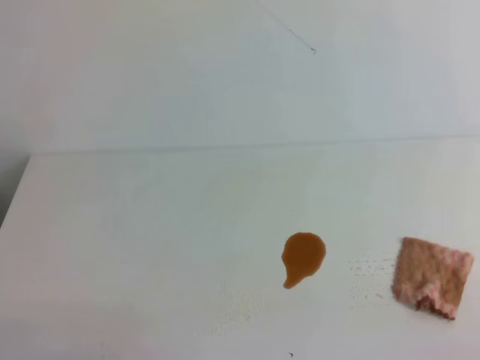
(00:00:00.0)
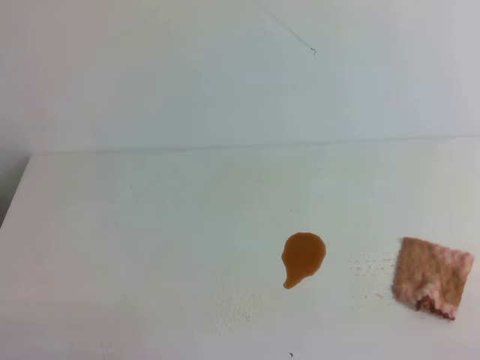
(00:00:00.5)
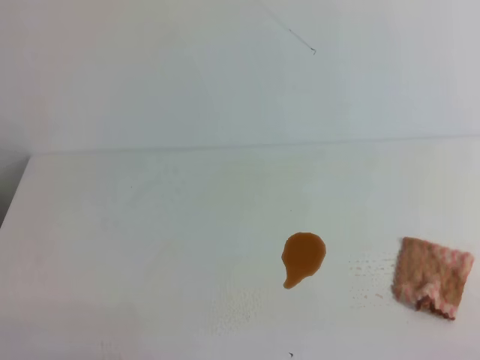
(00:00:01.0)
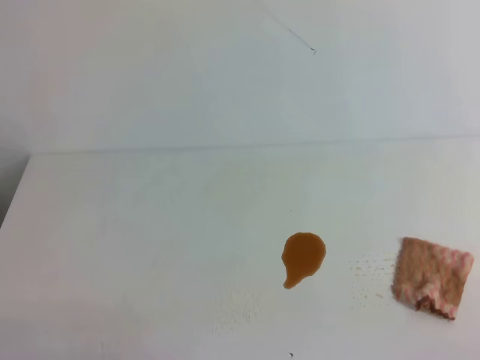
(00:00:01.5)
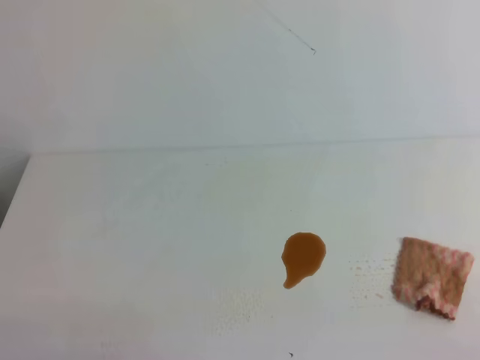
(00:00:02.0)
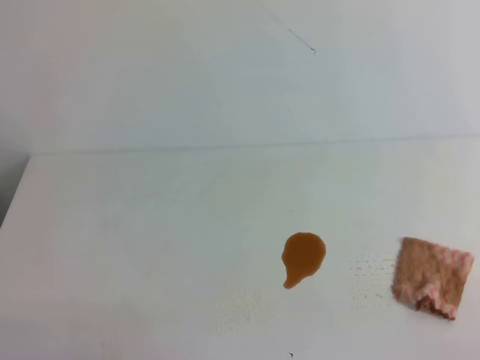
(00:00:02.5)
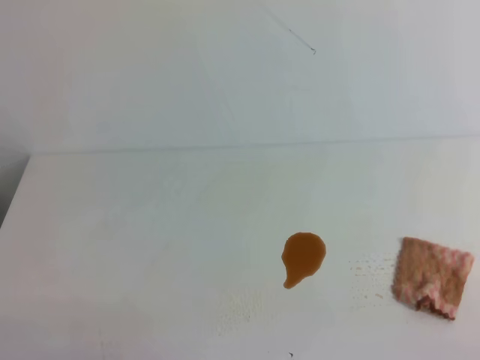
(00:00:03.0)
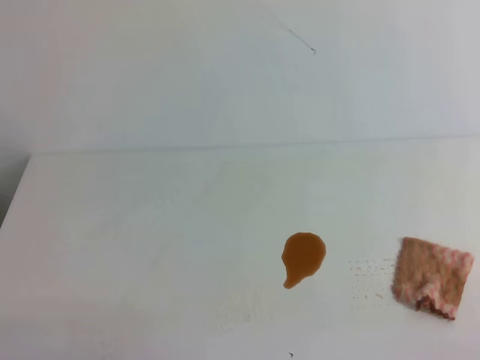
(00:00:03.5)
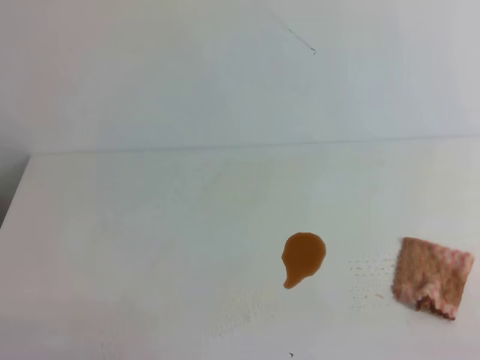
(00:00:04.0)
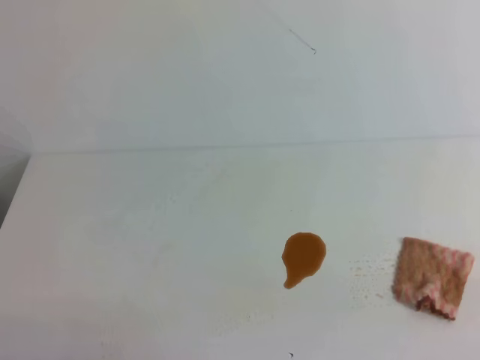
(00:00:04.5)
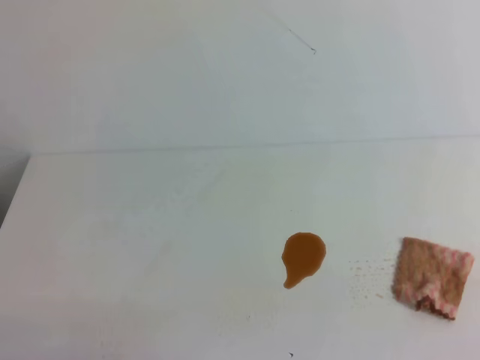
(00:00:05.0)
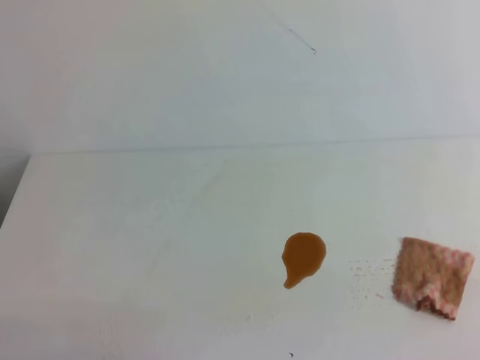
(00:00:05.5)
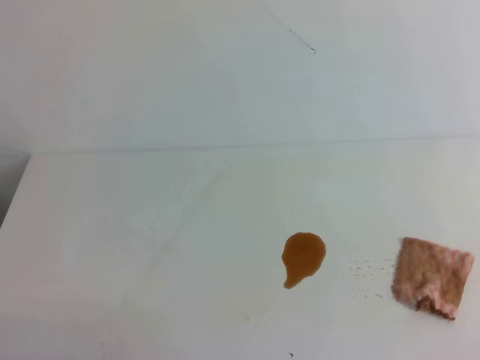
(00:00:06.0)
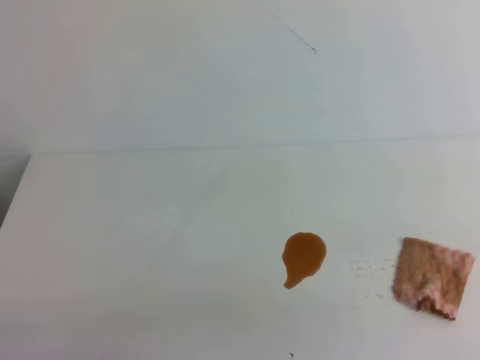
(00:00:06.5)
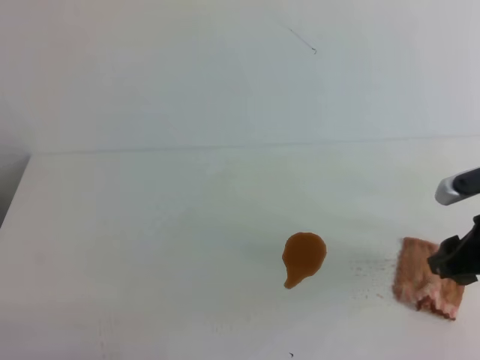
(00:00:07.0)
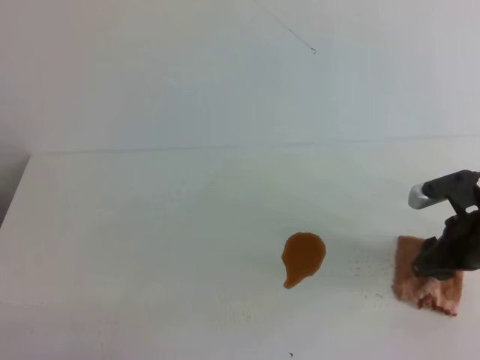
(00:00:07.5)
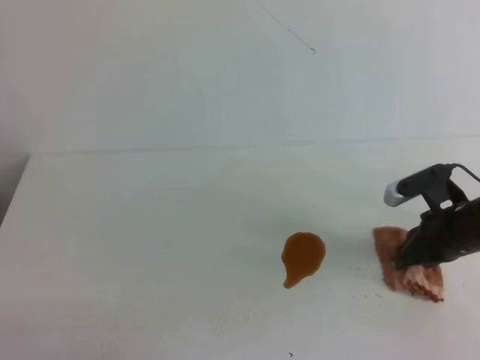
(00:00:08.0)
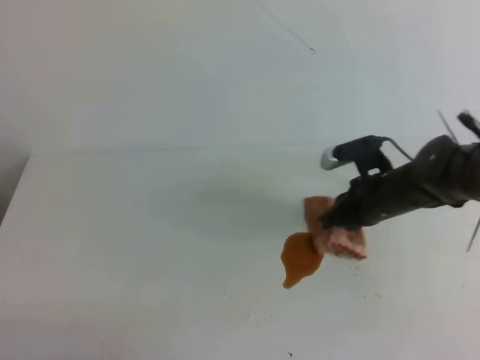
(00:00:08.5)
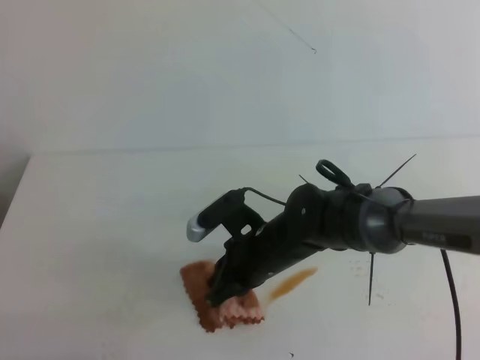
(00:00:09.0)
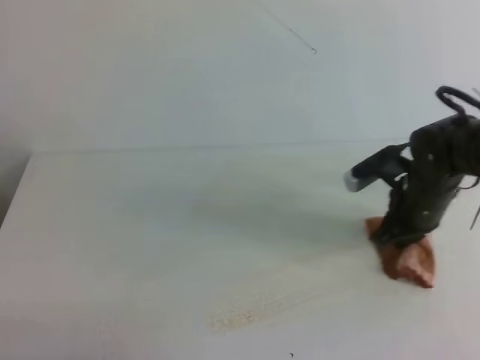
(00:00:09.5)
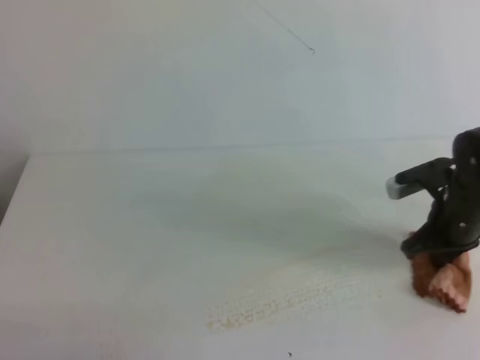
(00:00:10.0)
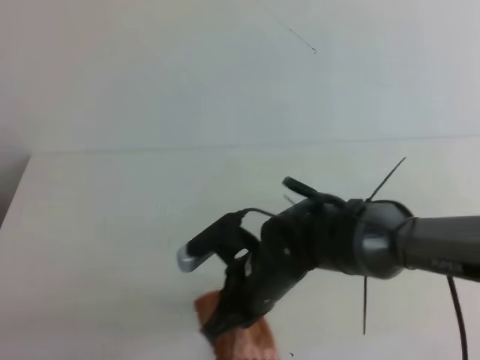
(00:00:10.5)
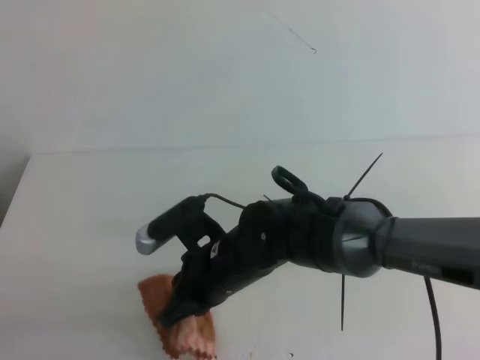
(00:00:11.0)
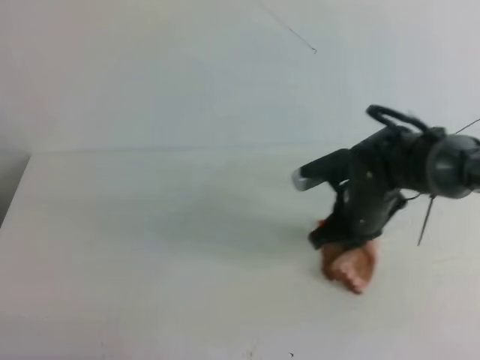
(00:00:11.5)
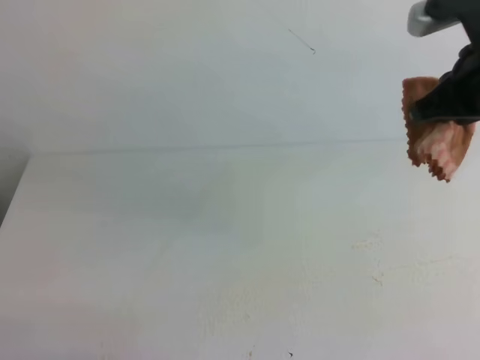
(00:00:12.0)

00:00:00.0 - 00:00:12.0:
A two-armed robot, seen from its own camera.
00:00:00.0 - 00:00:04.0: Neither gripper changes place.
00:00:06.0 - 00:00:08.0: The right gripper travels forward and downward by some 35 cm, and opens and closes again.
00:00:08.0 - 00:00:10.0: The right gripper travels to the left and back again, some 20 cm each way.
00:00:10.0 - 00:00:12.0: The right gripper travels upward by approximately 20 cm, and reaches roughly 25 cm to the left, then returns.

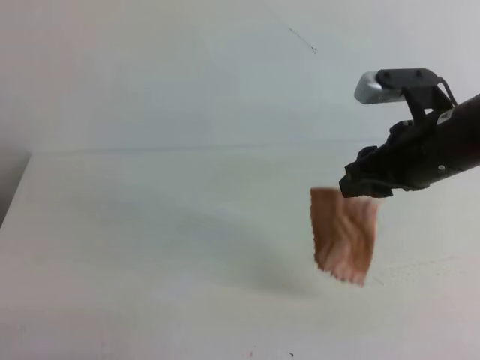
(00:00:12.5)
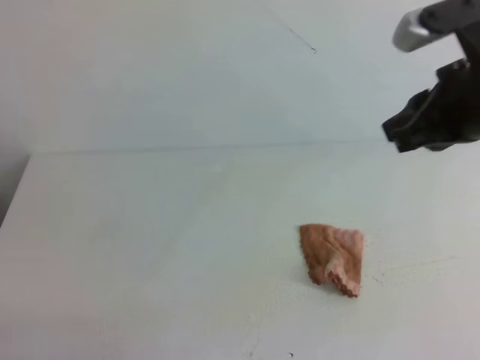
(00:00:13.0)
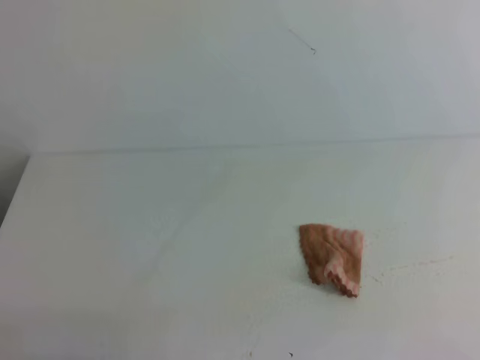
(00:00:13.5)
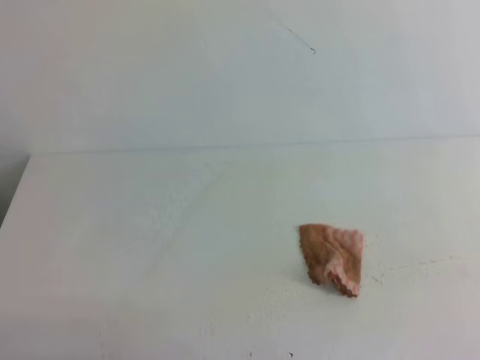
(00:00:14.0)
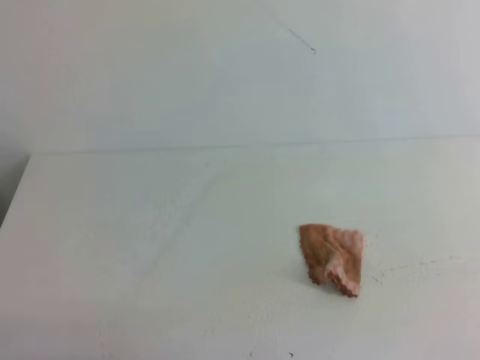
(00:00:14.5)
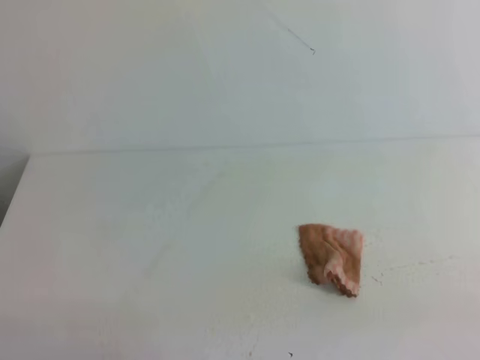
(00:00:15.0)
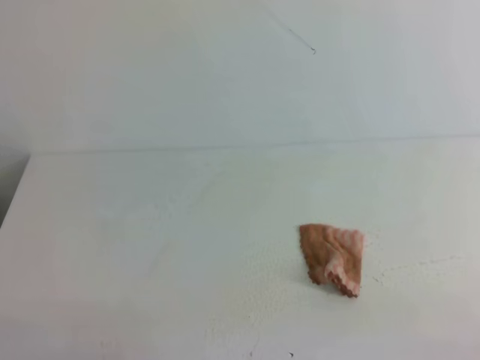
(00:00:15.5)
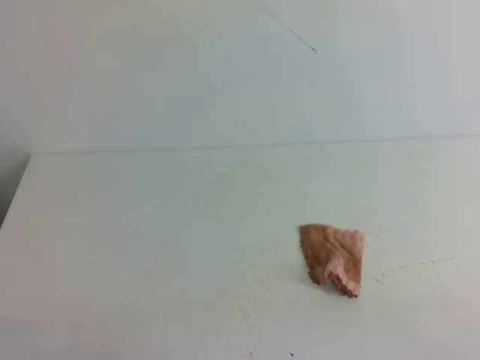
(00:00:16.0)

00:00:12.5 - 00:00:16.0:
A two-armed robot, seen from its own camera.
00:00:12.5 - 00:00:14.5: The right gripper shifts approximately 25 cm backward and to the right, and closes.
